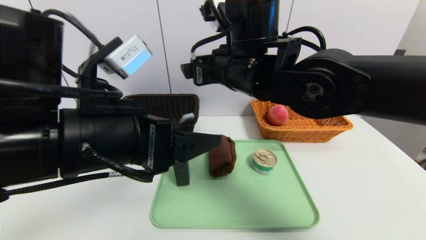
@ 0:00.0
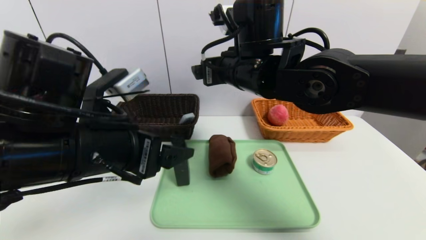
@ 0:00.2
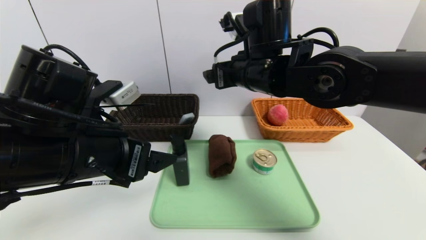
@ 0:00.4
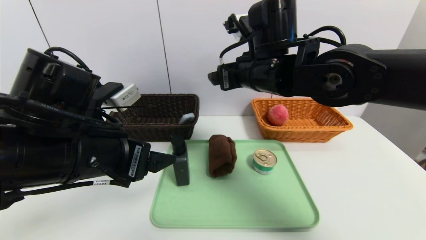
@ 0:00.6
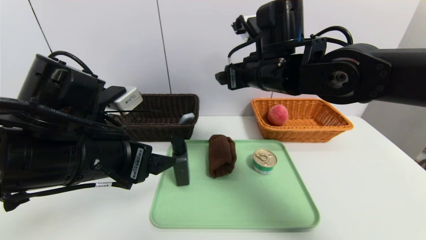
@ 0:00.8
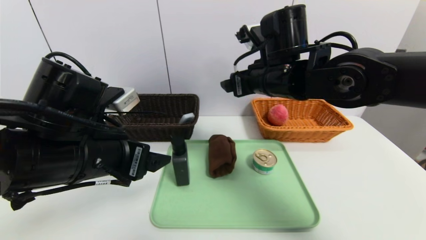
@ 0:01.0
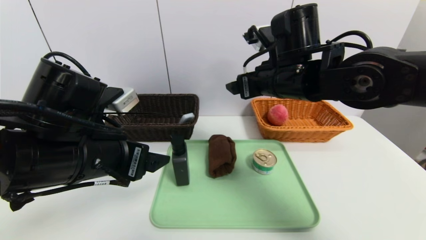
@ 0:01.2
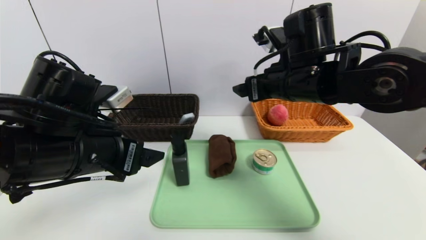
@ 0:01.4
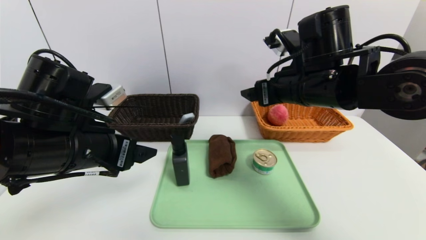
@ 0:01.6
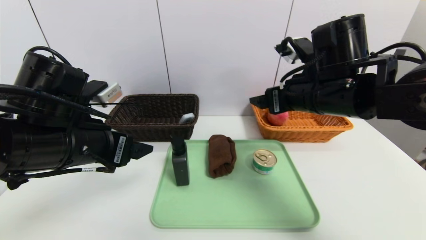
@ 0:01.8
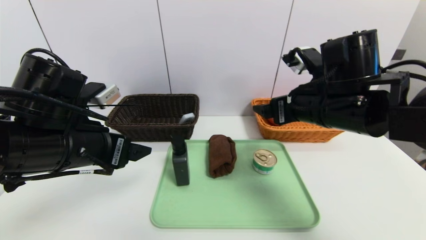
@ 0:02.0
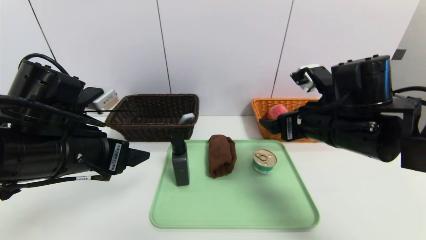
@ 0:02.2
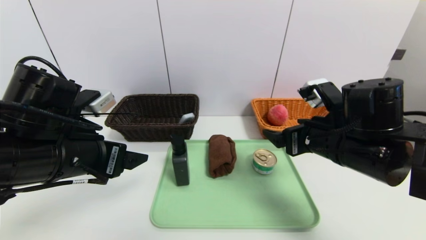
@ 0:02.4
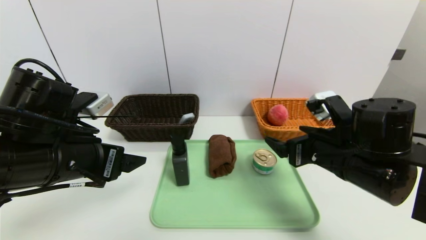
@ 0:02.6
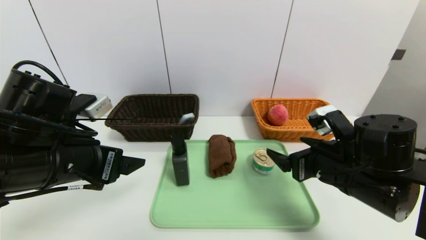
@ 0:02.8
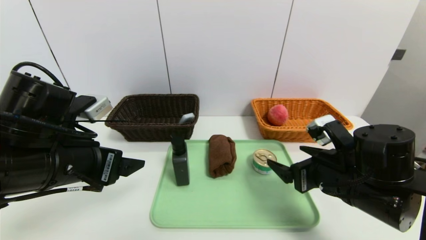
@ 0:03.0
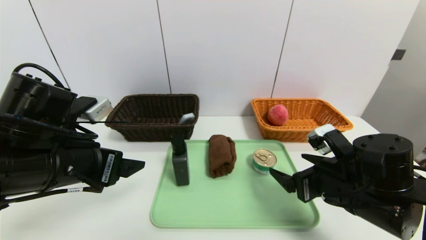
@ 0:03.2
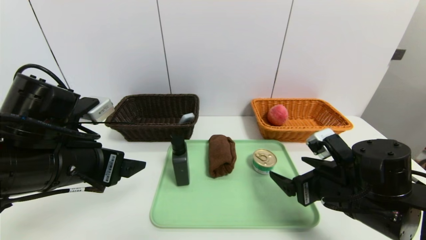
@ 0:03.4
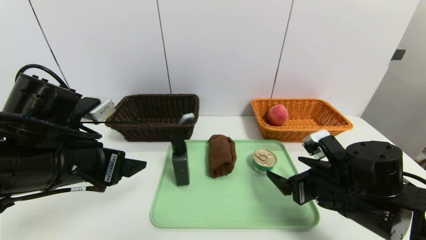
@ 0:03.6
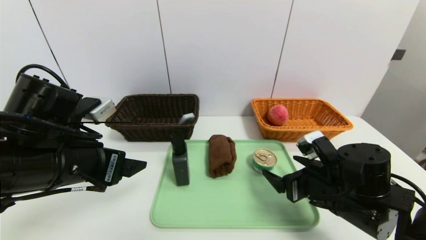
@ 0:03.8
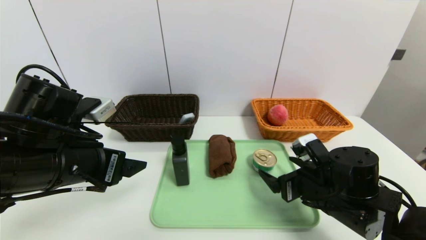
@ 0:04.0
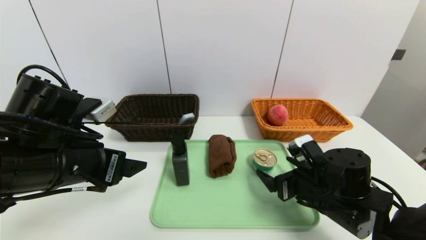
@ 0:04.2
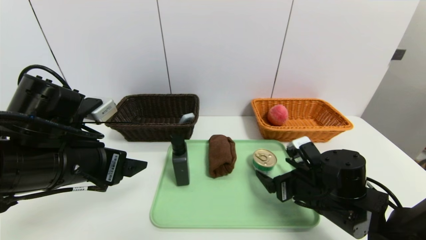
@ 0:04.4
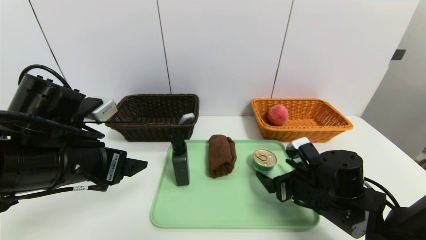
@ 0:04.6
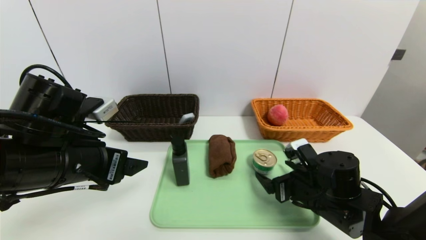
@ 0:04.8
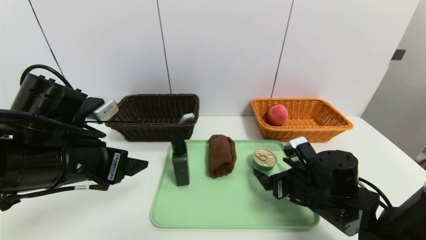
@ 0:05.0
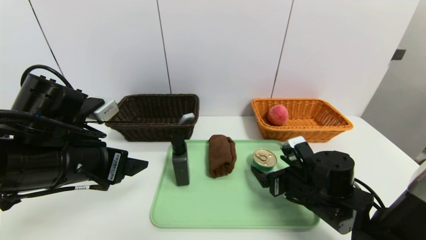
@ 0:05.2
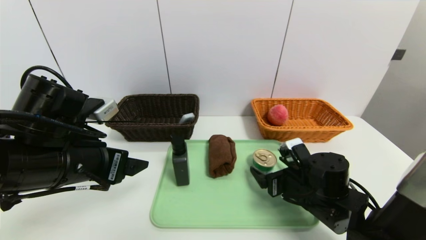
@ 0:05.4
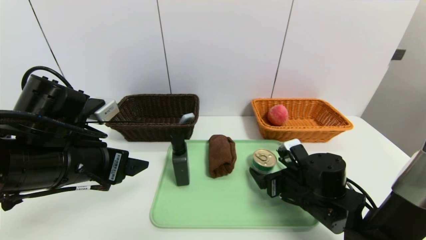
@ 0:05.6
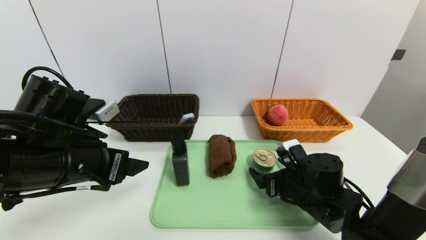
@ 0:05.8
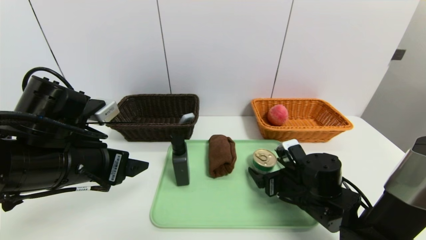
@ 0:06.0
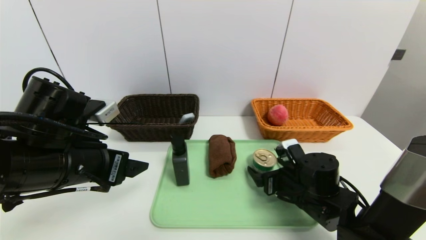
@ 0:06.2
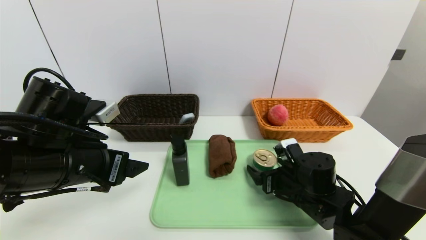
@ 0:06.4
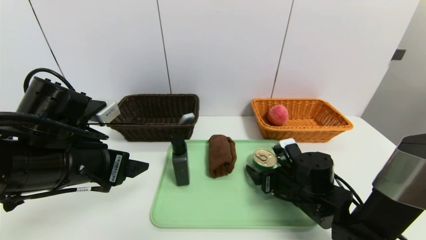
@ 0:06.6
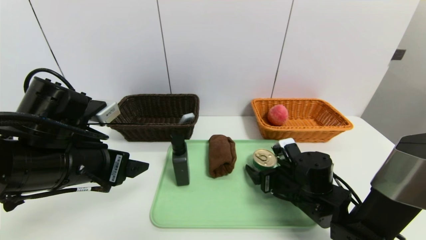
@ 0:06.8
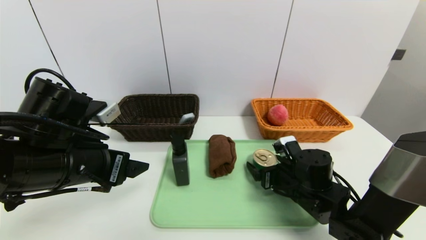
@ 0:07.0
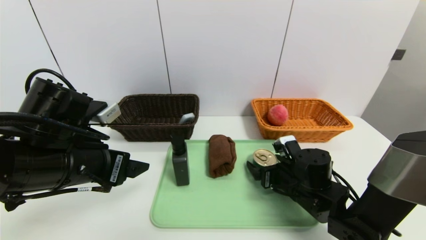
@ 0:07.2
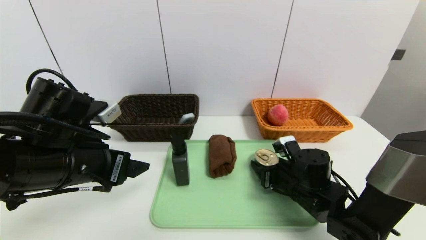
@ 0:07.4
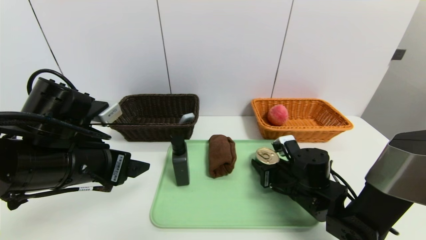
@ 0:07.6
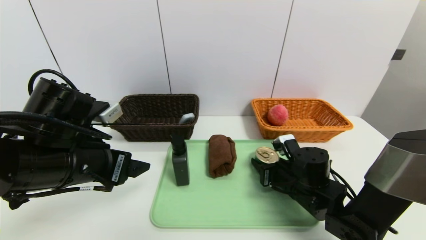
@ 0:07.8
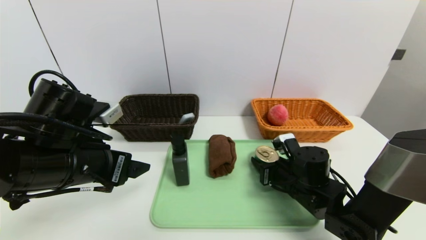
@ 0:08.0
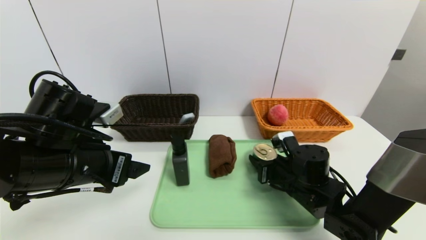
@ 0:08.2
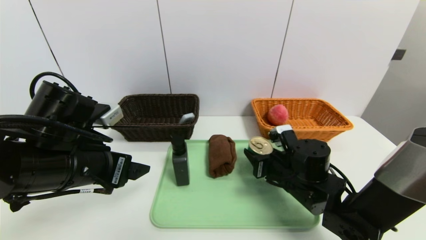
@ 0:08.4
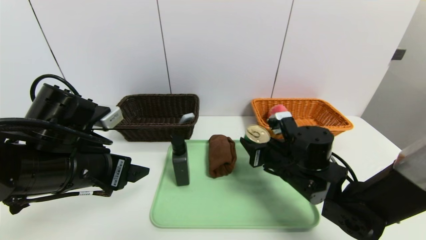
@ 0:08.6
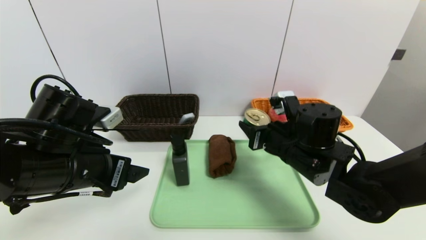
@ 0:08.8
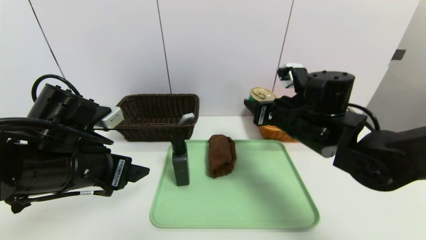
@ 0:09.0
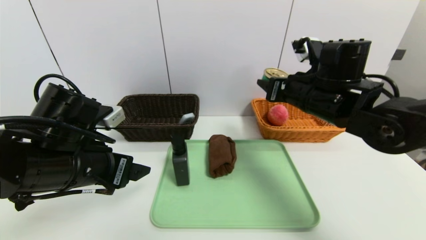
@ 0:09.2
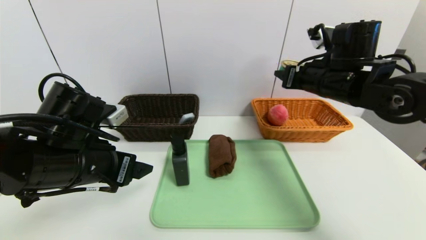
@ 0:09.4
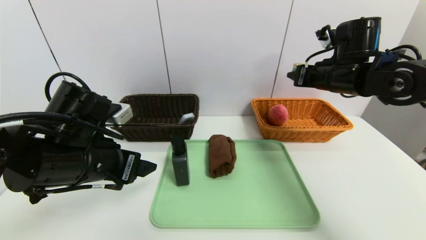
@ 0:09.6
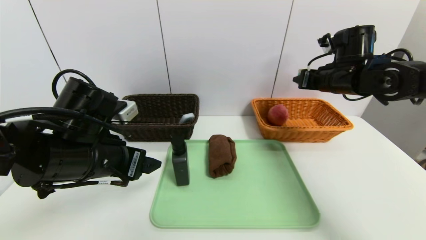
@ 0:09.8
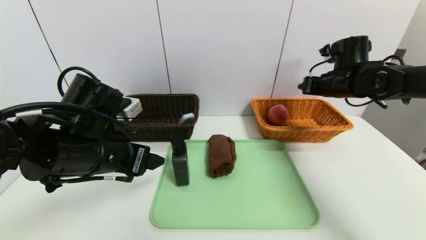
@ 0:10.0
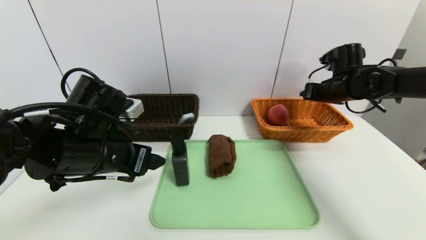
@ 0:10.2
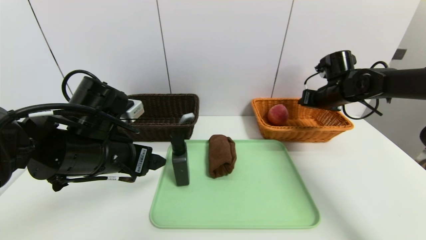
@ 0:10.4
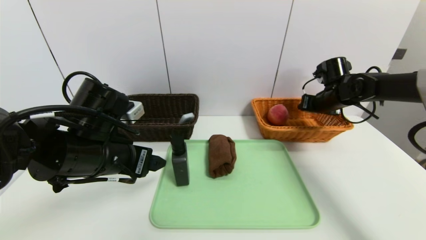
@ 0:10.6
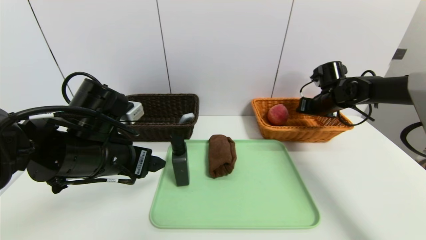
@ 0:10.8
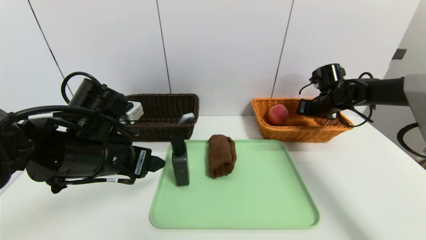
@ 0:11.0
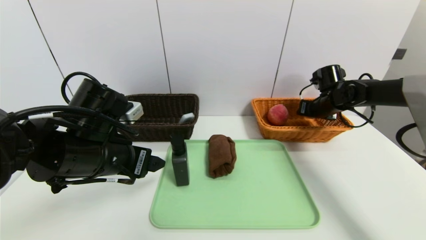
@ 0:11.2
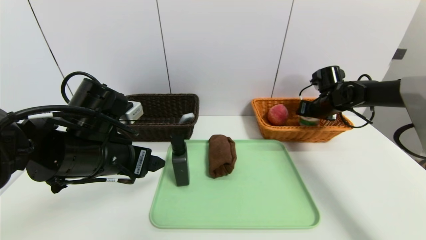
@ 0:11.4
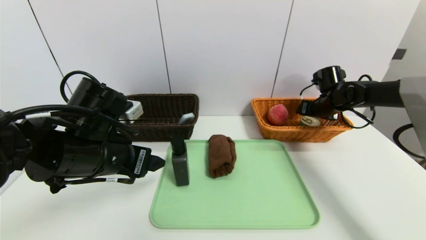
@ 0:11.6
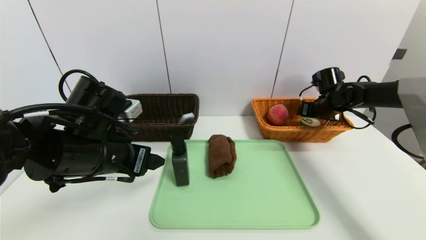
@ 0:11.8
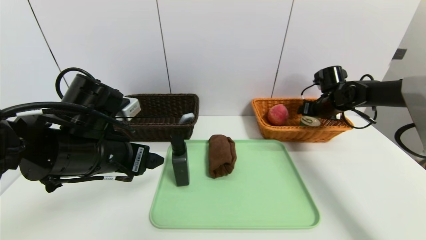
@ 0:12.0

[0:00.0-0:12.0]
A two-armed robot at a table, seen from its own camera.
Task of the whole recording: place the food in the right basket with the right gripper, and place the non food items in the left basket with the left gripper.
Step, 0:00.0 to 0:12.0: Grasp the tin and put it in the right basket.
0:00.0 to 0:01.6: The right gripper goes some 10 cm to the right. Meanwhile the left gripper shifts some 5 cm to the left.
0:01.6 to 0:03.0: The right gripper travels downward, backward and to the right by about 15 cm.
0:03.0 to 0:04.4: The right gripper goes some 5 cm downward.
0:04.4 to 0:06.0: The grippers make only small movements.
0:06.0 to 0:07.6: The right gripper closes up.
0:07.6 to 0:09.0: The right gripper heads upward, covering roughly 15 cm.
0:09.0 to 0:10.4: The right gripper shifts roughly 20 cm to the right and forward.
0:10.4 to 0:12.0: The right gripper opens.

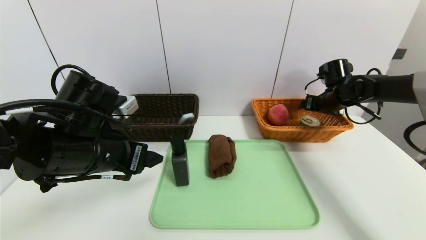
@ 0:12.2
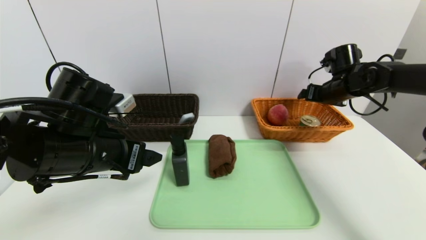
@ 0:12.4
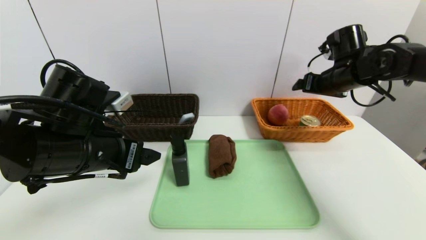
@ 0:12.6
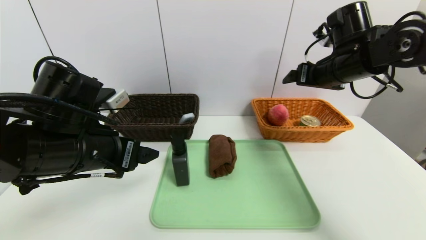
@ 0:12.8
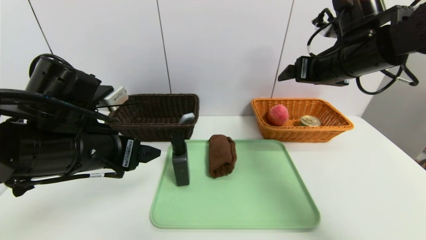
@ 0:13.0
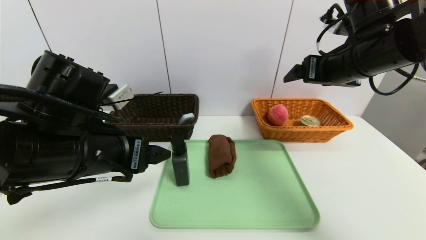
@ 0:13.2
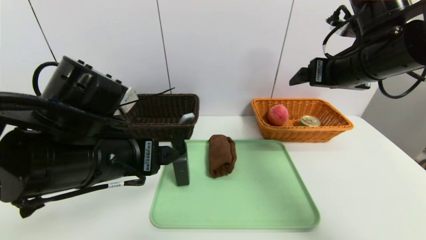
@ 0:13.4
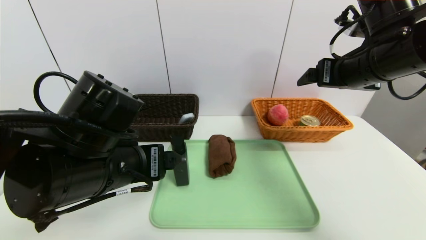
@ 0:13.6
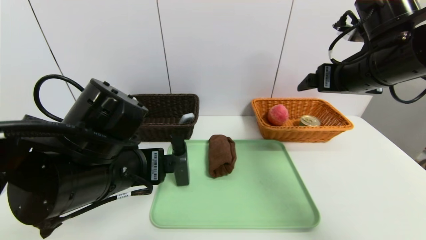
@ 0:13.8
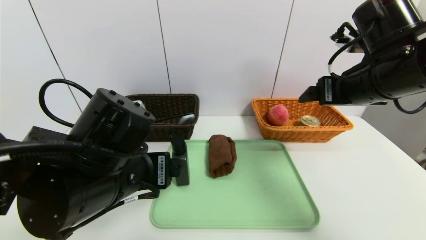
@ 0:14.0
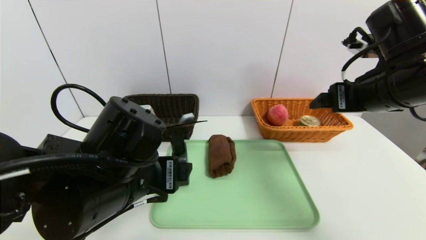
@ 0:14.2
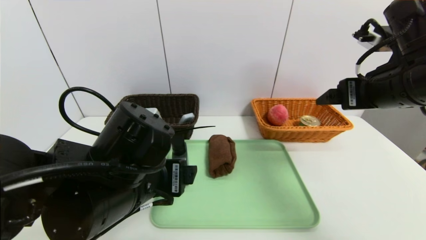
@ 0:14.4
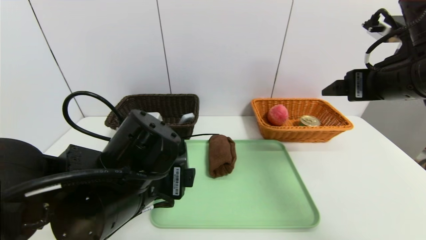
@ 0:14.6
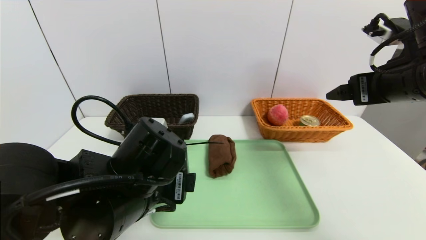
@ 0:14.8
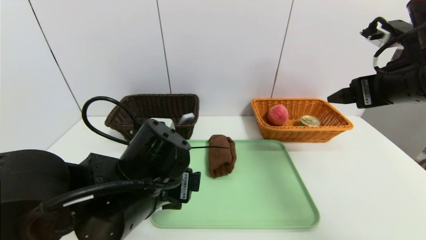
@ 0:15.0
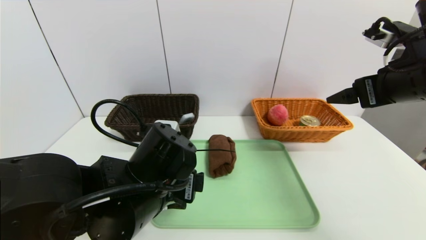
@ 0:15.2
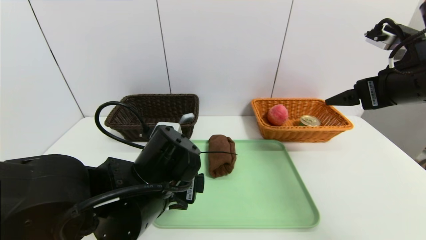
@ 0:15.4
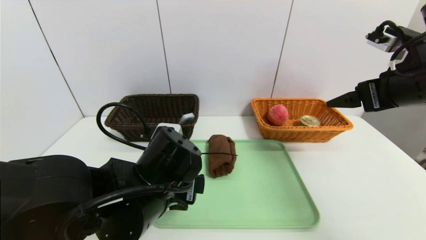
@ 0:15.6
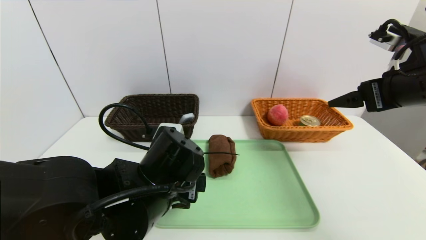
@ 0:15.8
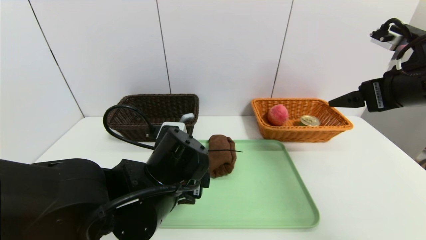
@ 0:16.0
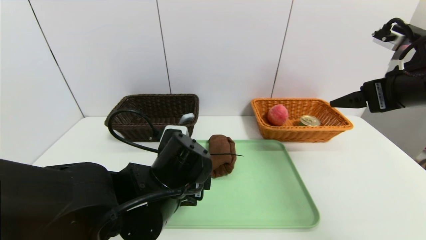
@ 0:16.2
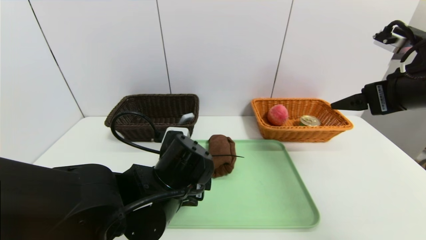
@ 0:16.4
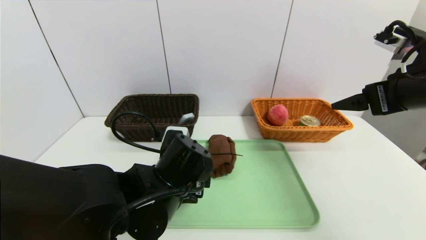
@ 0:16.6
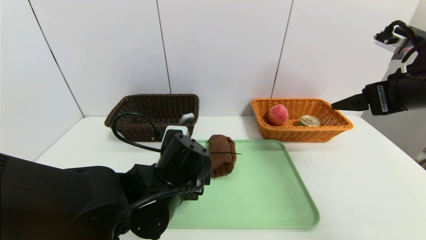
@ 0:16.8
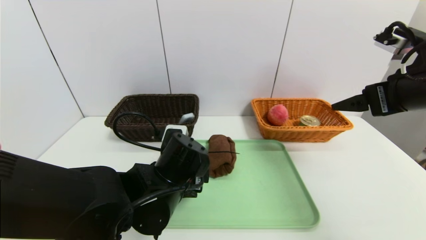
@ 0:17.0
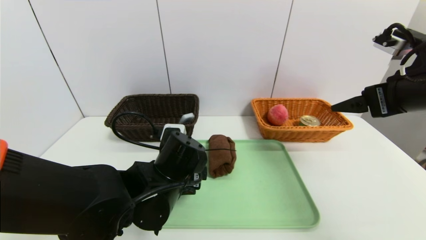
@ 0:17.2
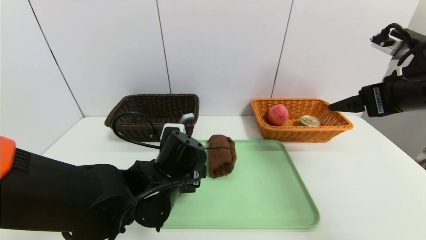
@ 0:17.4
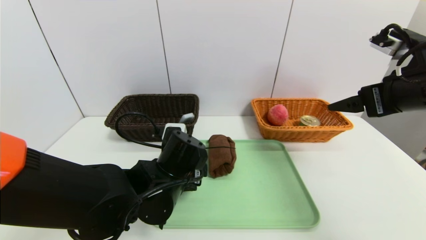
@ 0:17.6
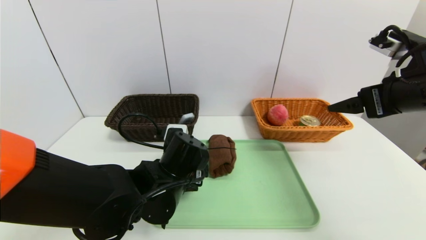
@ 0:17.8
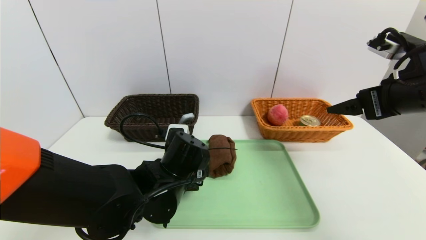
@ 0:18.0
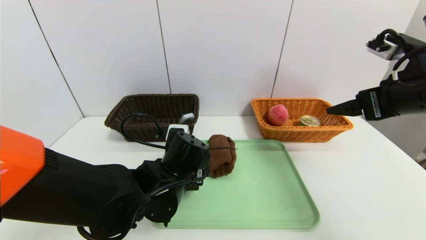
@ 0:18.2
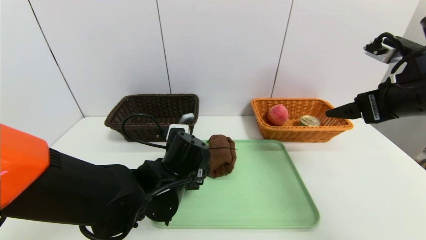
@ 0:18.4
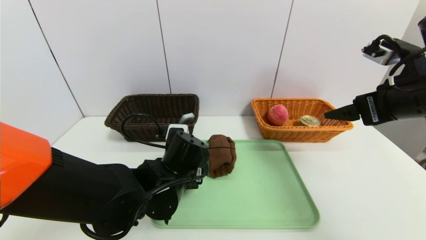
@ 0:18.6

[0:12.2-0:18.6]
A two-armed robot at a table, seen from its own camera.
Task of the whole recording: place the food in the right basket with the right gripper, and place the non food items in the left basket with the left gripper.
0:12.2 to 0:13.8: The left gripper ends up some 5 cm from where it was; the right gripper moves backward, upward and to the left, roughly 25 cm.
0:13.8 to 0:15.4: The right gripper moves to the right, about 5 cm. Meanwhile the left gripper travels downward by about 5 cm.
0:15.4 to 0:17.0: The grippers move only a little.
0:17.0 to 0:18.6: There are only small adjustments of the grippers.
